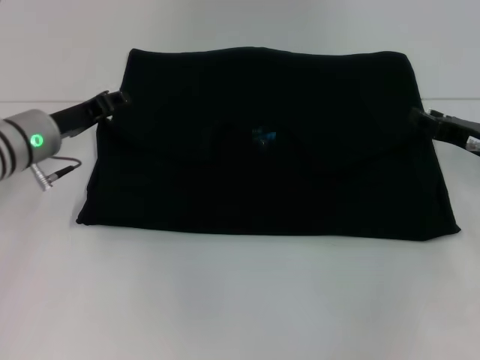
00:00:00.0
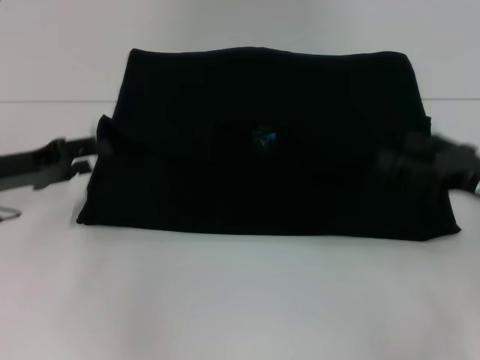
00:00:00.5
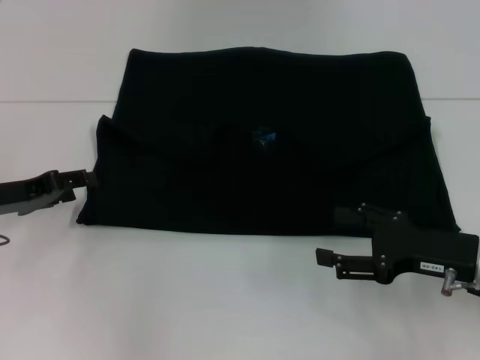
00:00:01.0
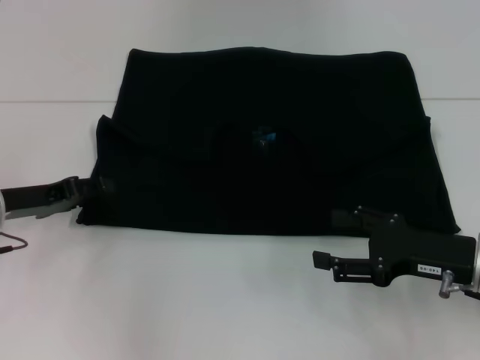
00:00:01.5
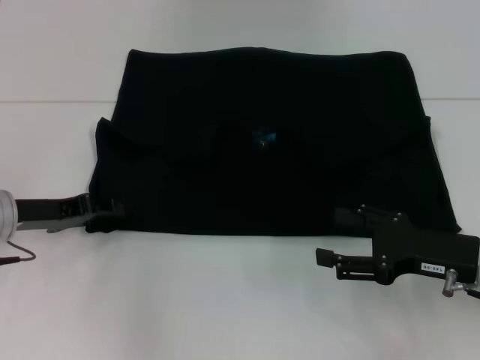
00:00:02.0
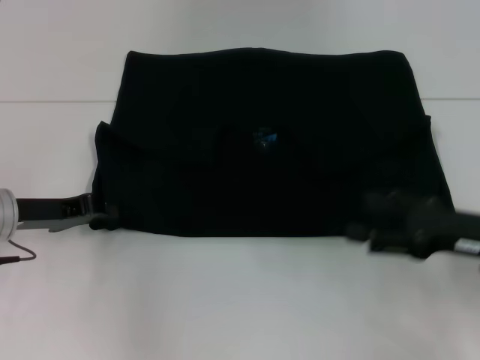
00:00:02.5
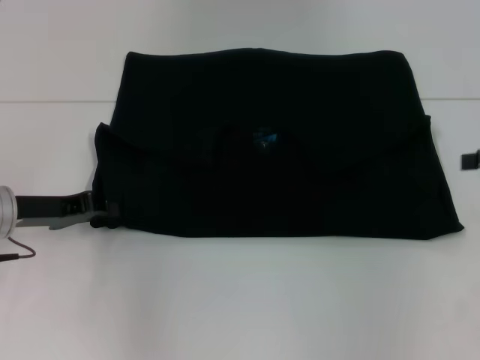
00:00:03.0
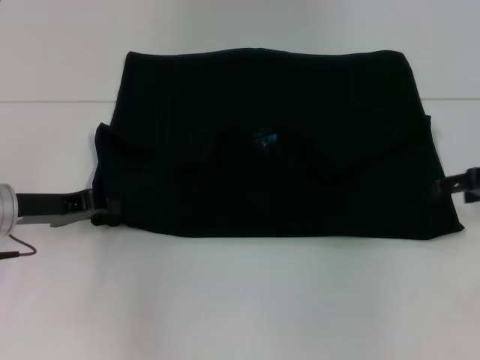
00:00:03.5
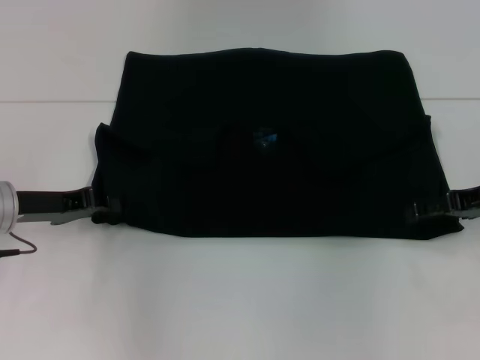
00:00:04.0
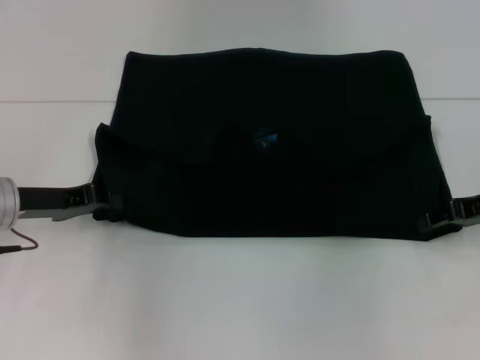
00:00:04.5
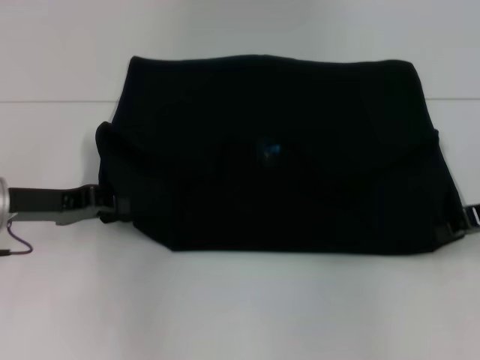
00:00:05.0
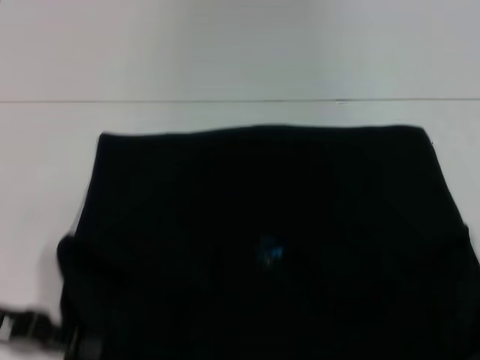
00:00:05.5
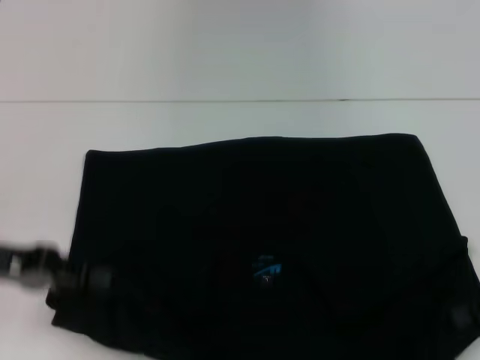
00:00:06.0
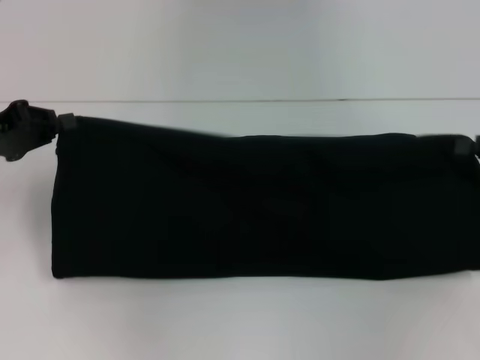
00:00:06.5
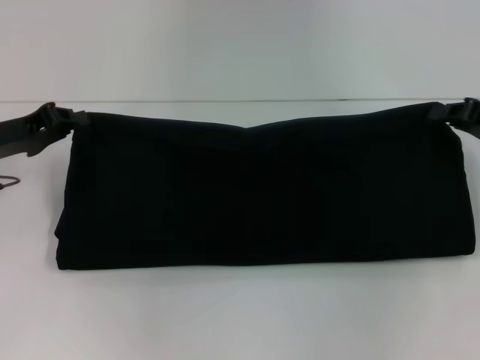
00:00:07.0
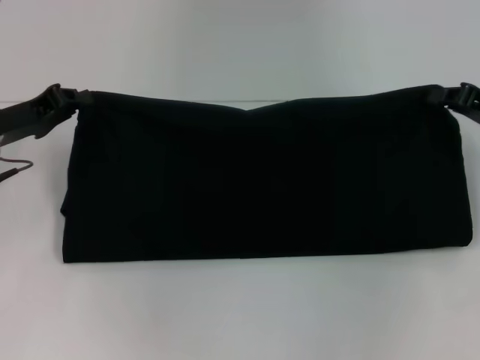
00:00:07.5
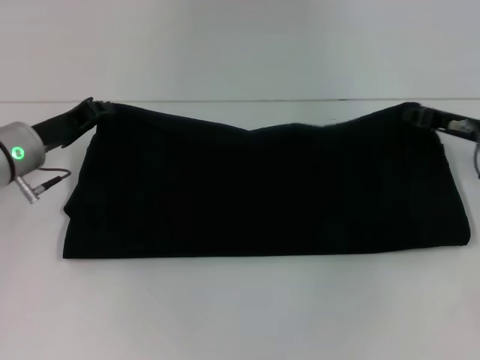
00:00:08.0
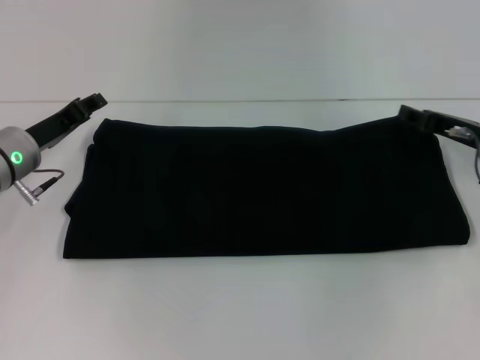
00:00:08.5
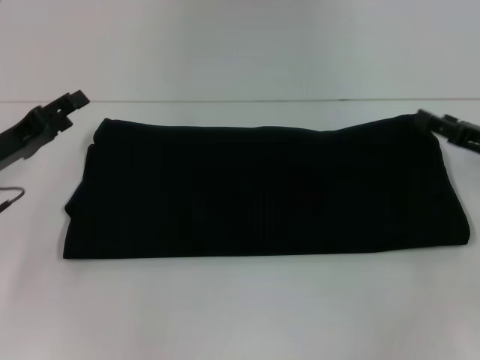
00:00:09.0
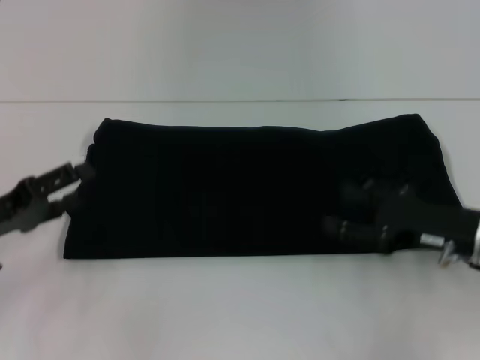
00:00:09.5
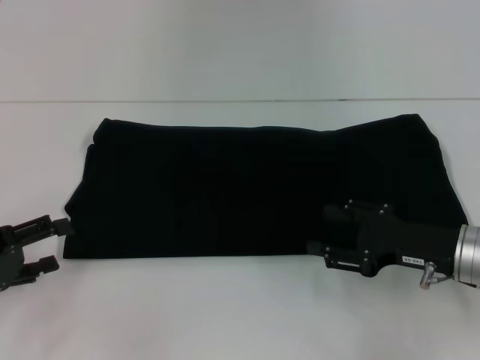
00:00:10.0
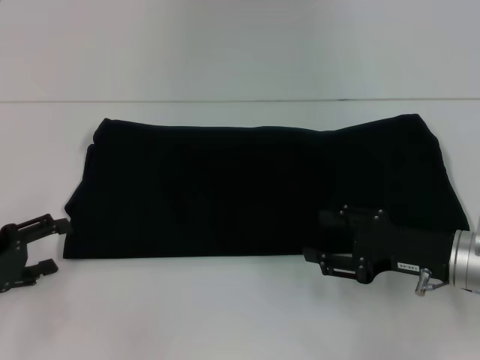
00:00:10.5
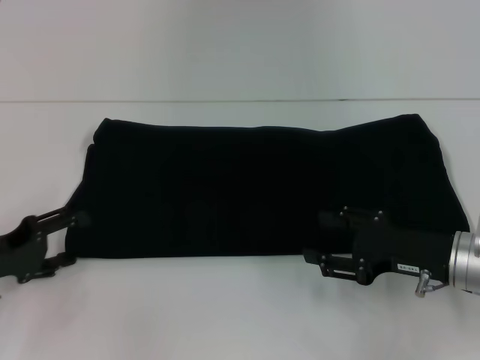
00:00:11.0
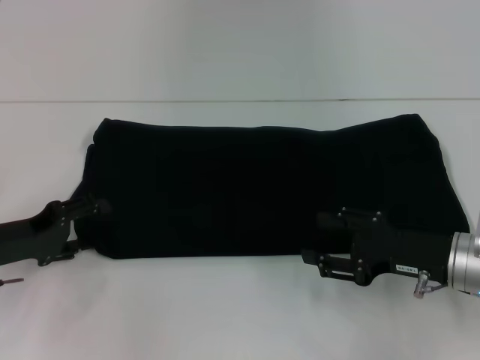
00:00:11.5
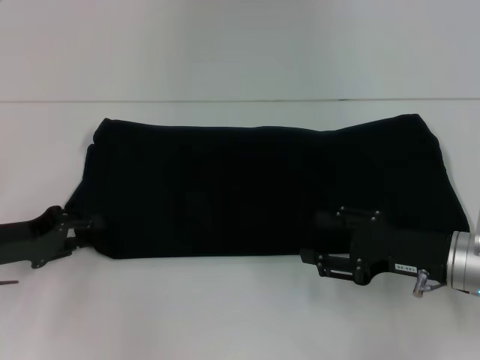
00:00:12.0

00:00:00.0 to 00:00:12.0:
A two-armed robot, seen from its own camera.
Step, 00:00:01.0 to 00:00:05.5: Pull the clothes with your left hand.
Step, 00:00:01.0 to 00:00:05.5: Pull the clothes with your right hand.
Step, 00:00:06.0 to 00:00:08.5: Fold the clothes with your right hand.
00:00:00.0 to 00:00:02.0: Both grippers move backward, roughly 10 cm. The right gripper opens up; the left gripper opens its fingers.
00:00:02.0 to 00:00:04.0: The left gripper closes its fingers; the right gripper is displaced forward, to the right and upward by some 10 cm.
00:00:04.0 to 00:00:06.0: Both grippers travel together backward, some 5 cm. The right gripper closes its fingers.
00:00:06.0 to 00:00:08.0: The left gripper shifts some 10 cm forward. Meanwhile the right gripper shifts roughly 10 cm forward and to the left.
00:00:08.0 to 00:00:10.0: The left gripper heads backward and to the left, covering roughly 15 cm, and opens its fingers, while the right gripper shifts some 10 cm backward, and opens.
00:00:10.0 to 00:00:12.0: The left gripper shifts roughly 5 cm forward, and closes up.

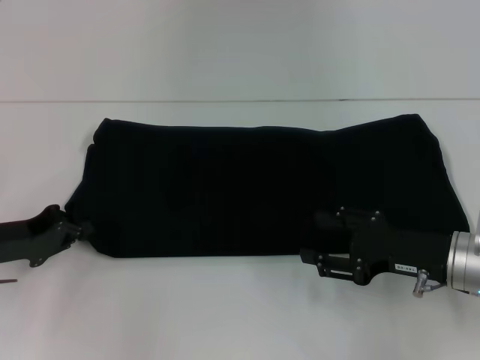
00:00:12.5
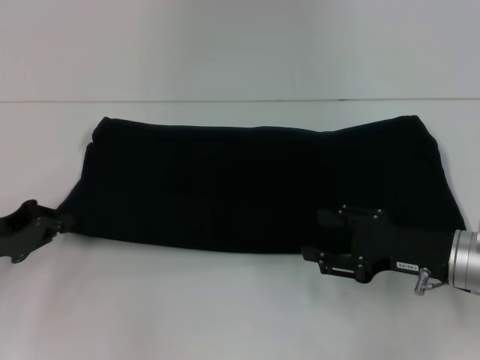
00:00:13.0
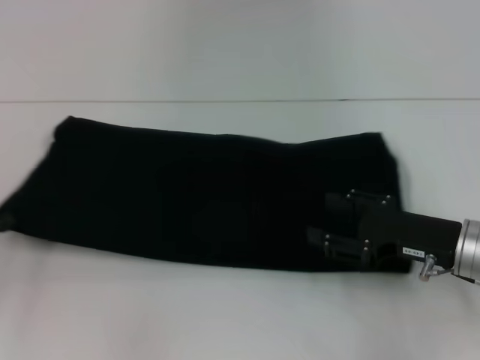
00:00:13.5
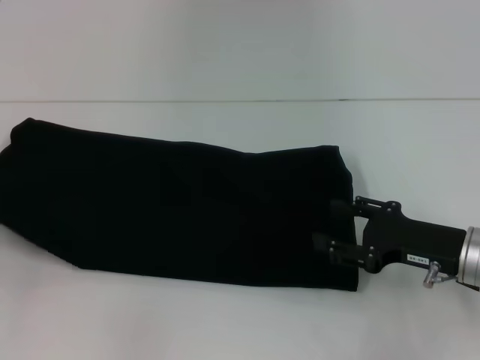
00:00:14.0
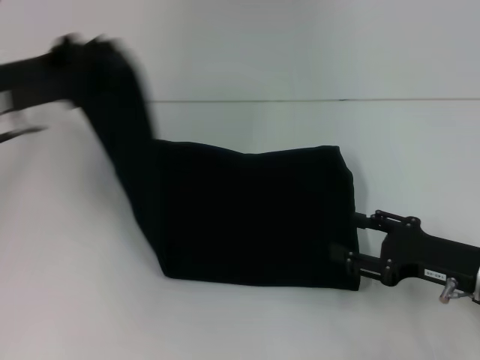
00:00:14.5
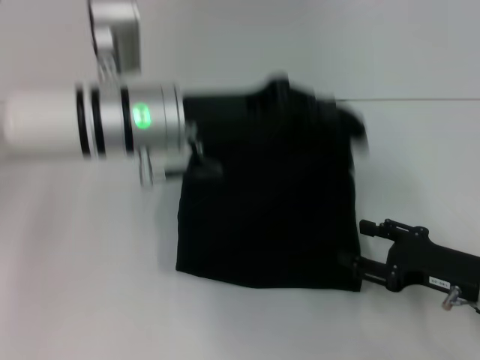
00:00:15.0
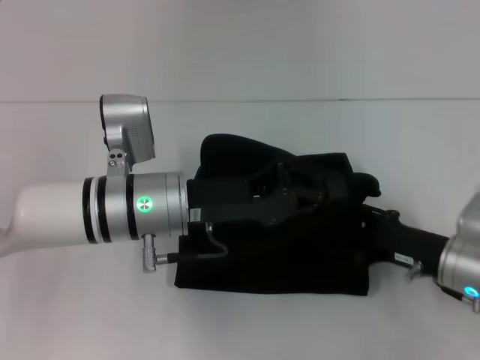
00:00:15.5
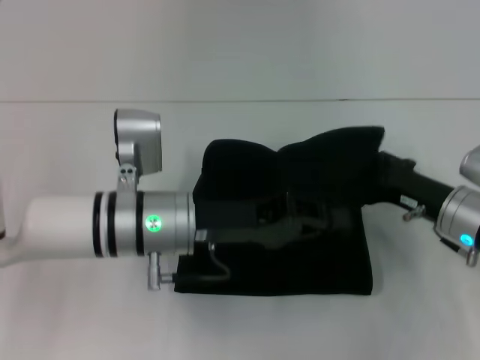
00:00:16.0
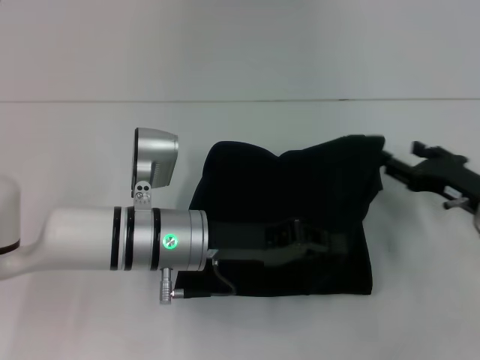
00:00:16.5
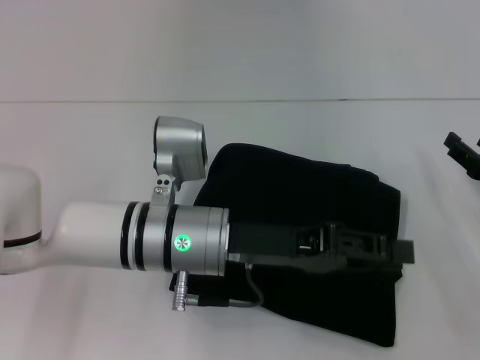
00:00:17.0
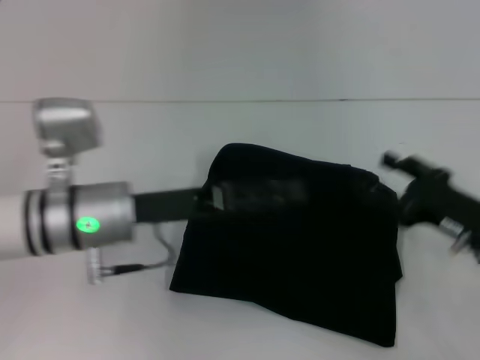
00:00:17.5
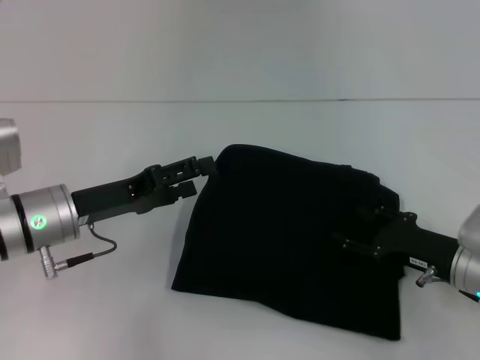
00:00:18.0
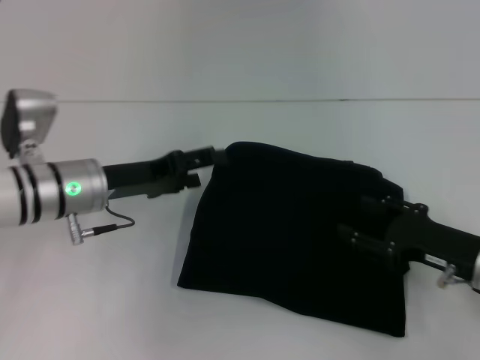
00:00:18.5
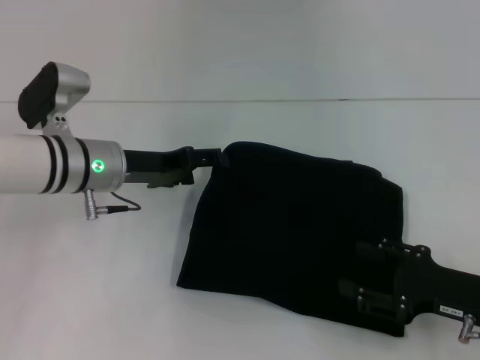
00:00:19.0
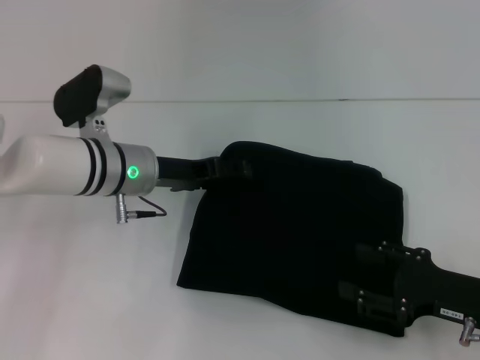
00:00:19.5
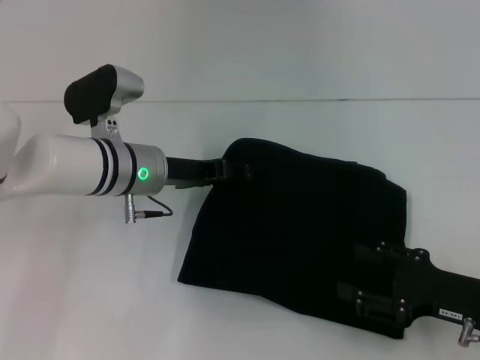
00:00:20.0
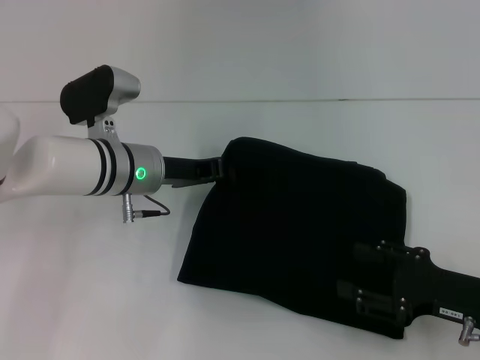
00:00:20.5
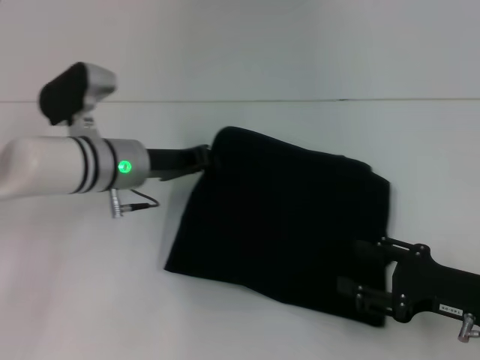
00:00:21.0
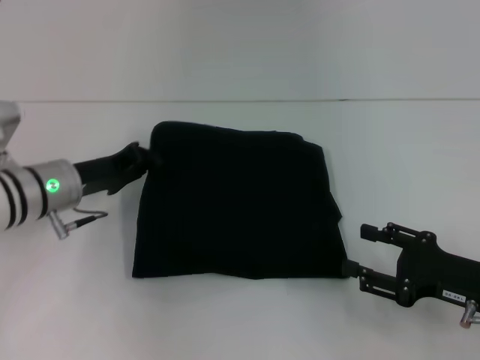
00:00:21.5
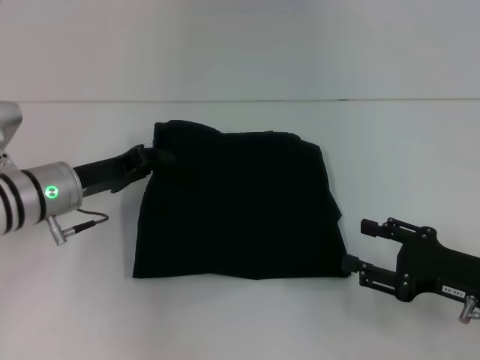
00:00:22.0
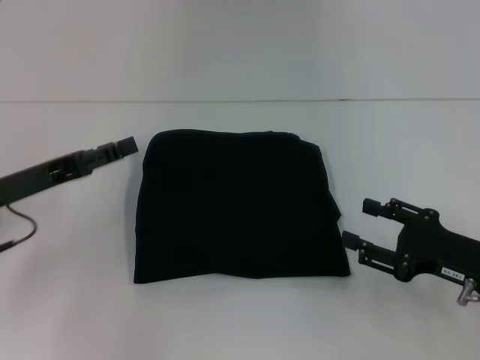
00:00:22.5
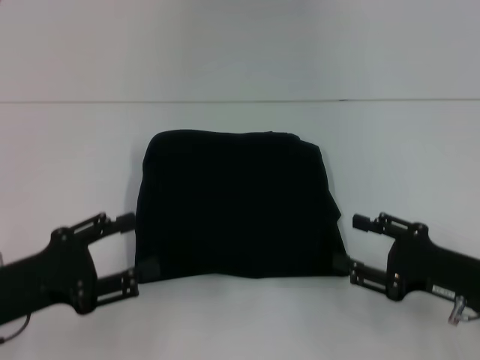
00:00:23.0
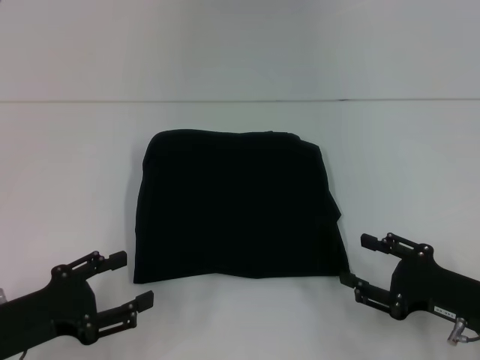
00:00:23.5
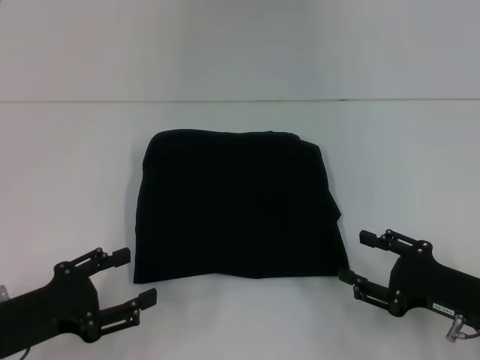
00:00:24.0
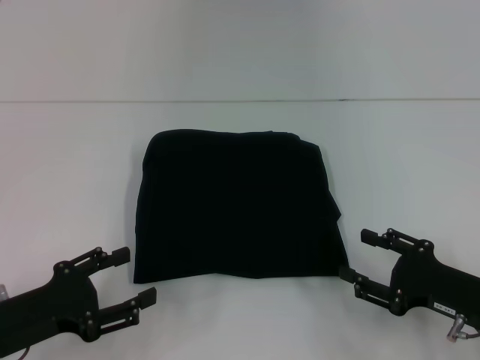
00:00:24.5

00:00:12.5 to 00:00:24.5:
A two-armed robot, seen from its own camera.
Step, 00:00:12.5 to 00:00:17.5: Fold the clothes with your left hand.
00:00:12.5 to 00:00:14.5: The left gripper moves upward and forward, approximately 15 cm, and moves some 10 cm to the left and comes back.
00:00:14.5 to 00:00:16.5: The left gripper is displaced to the right and downward by roughly 20 cm. Meanwhile the right gripper heads forward, covering about 5 cm.
00:00:16.5 to 00:00:18.5: The left gripper heads to the left, covering some 10 cm, and opens; the right gripper shifts approximately 5 cm backward.
00:00:18.5 to 00:00:20.5: The left gripper travels to the right by roughly 5 cm, and closes.
00:00:20.5 to 00:00:22.5: The left gripper heads to the left and backward, covering approximately 15 cm.
00:00:22.5 to 00:00:24.5: The left gripper shifts approximately 10 cm backward and downward.
